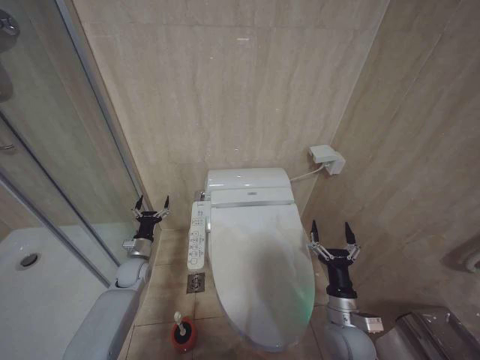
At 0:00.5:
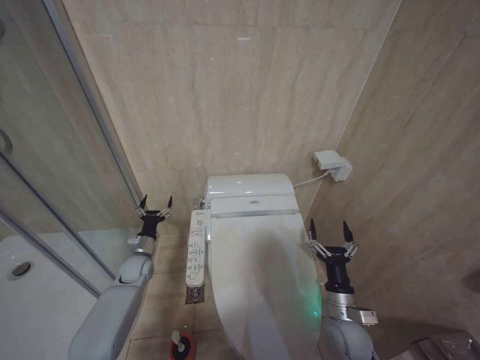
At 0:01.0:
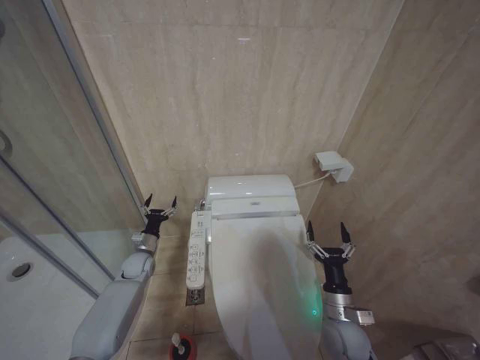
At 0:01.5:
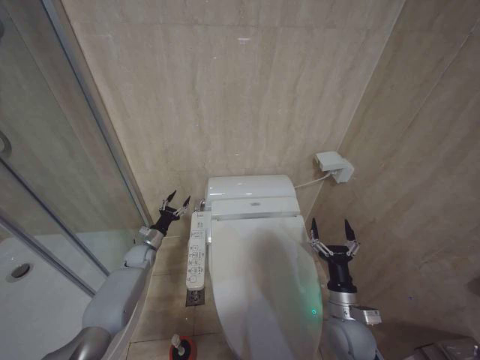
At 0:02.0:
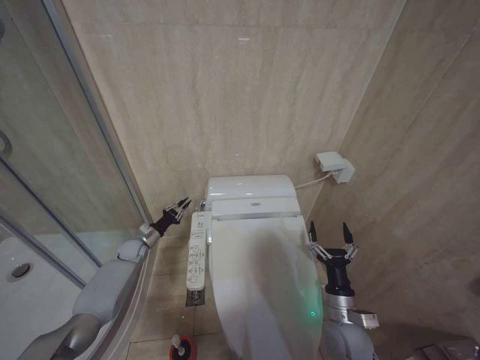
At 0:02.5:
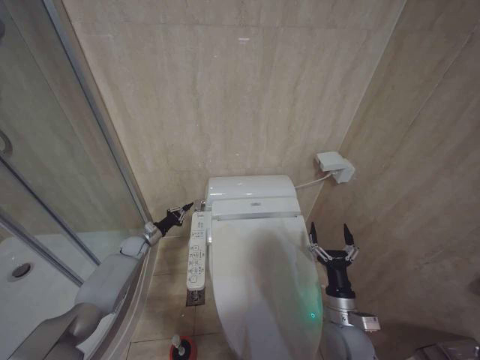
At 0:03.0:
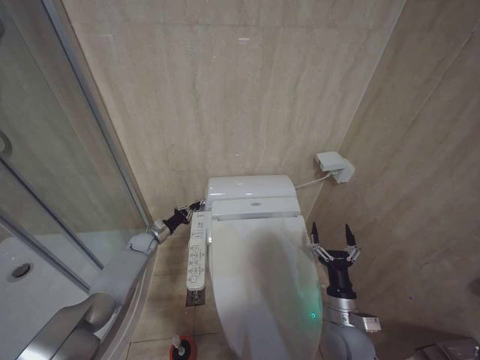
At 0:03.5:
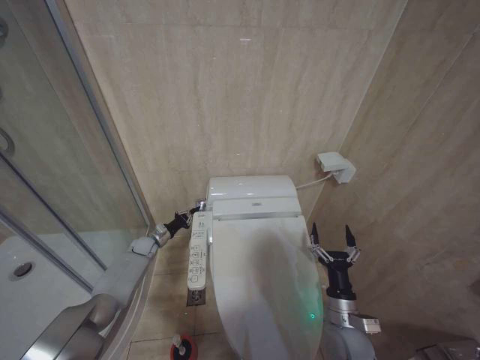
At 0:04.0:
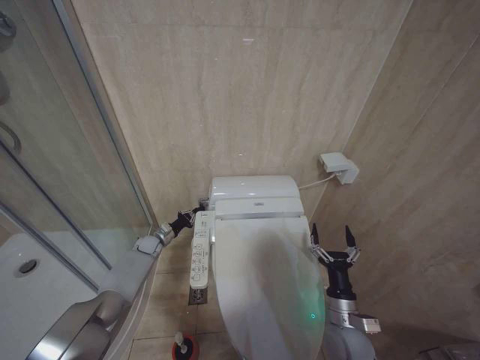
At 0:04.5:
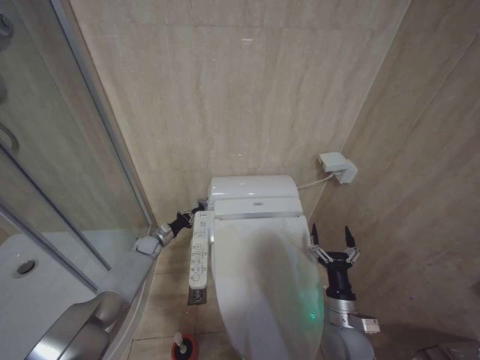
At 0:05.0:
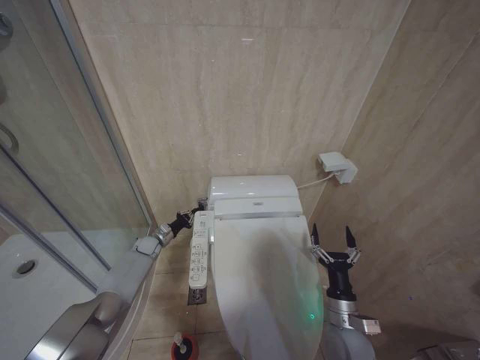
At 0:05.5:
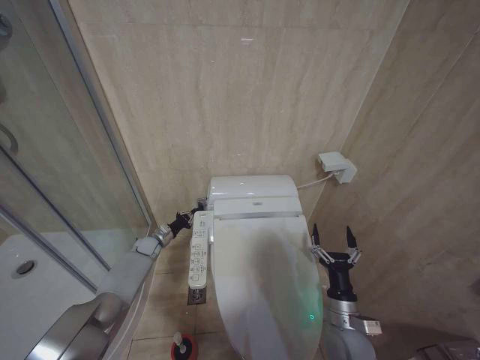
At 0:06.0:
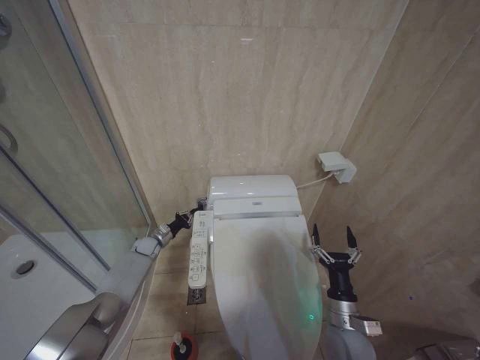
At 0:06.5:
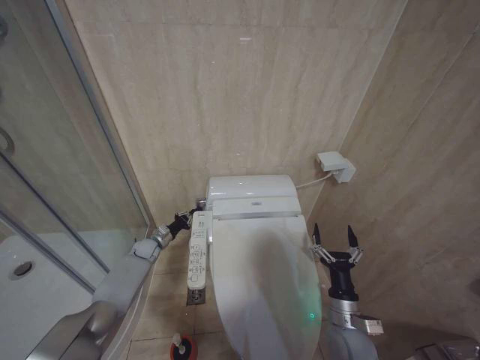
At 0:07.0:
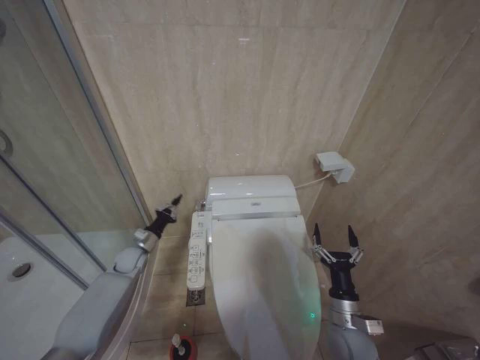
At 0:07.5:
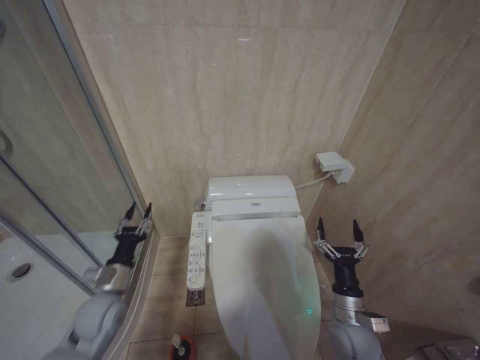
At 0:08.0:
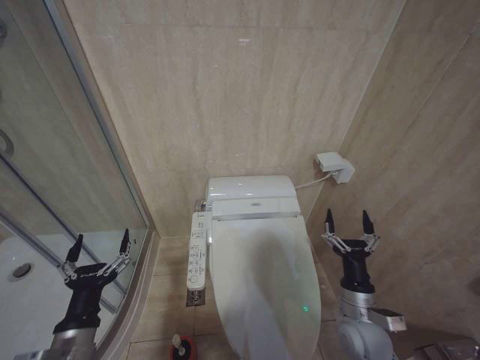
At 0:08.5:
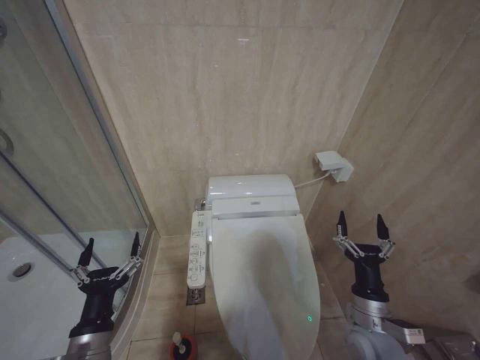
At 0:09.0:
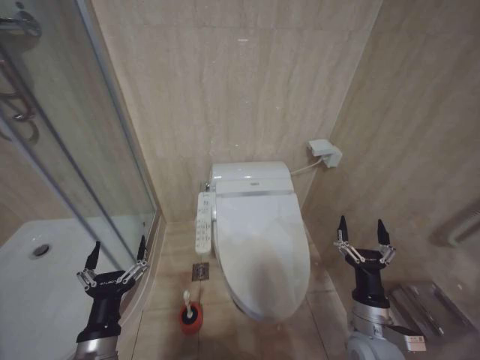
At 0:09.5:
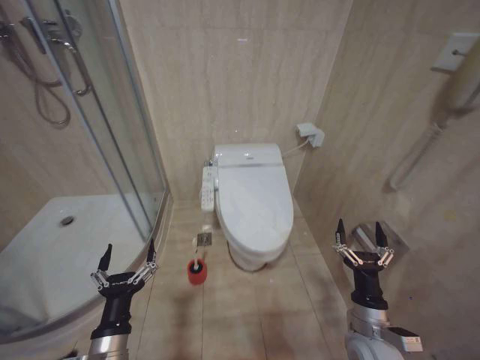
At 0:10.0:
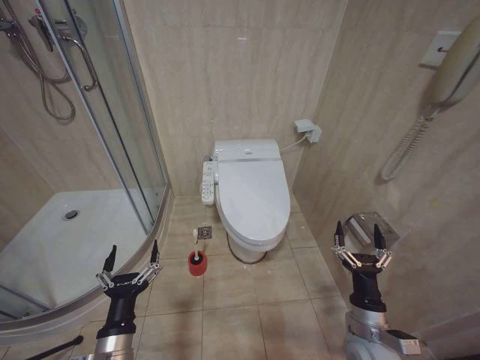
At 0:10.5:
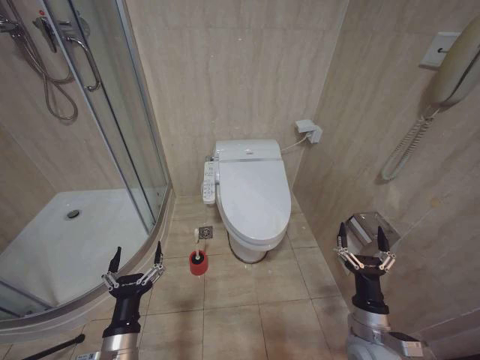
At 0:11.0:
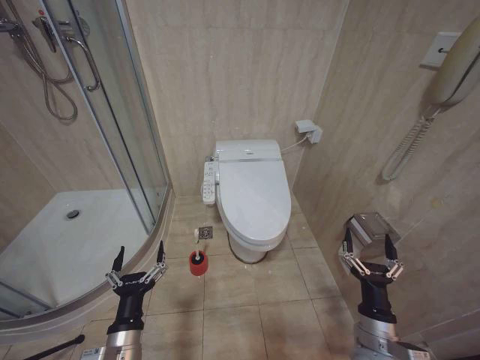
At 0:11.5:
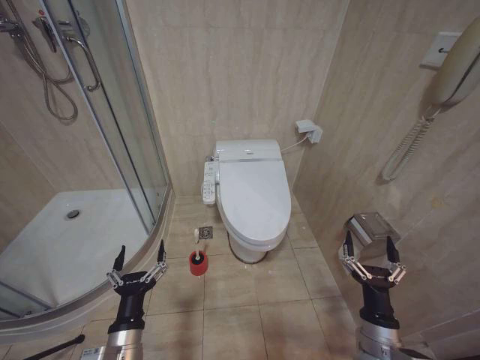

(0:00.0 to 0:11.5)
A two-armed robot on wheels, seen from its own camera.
Task of the whole recording: Open the toilet lid, clean the toilet bowl with a toilet brush, close the toilet lid, and flush.
0:00.0 - 0:02.0: The left gripper moves forward, about 10 cm, and closes its fingers.
0:02.0 - 0:04.0: The left gripper ends up roughly 5 cm from where it was, and closes.
0:04.0 - 0:06.0: Both grippers stay put.
0:06.0 - 0:07.5: The left gripper is displaced backward and upward by approximately 25 cm.
0:07.5 - 0:09.5: The left gripper heads backward and to the right, covering some 20 cm, and opens its fingers.
0:09.5 - 0:11.5: The grippers move only a little.
